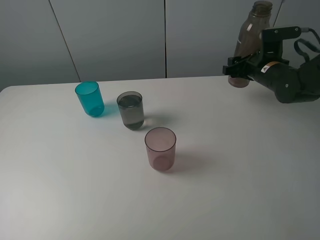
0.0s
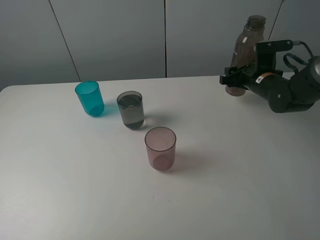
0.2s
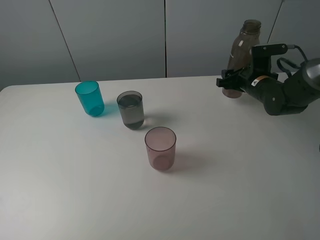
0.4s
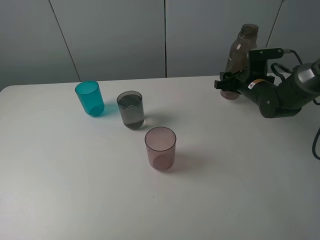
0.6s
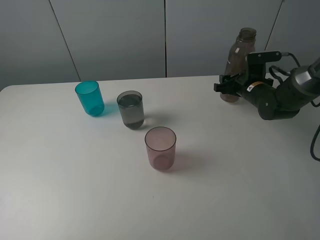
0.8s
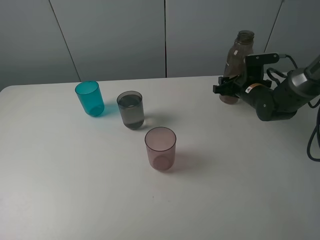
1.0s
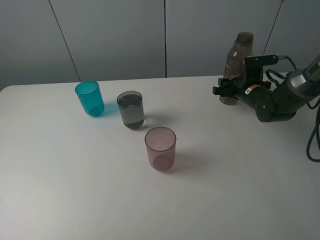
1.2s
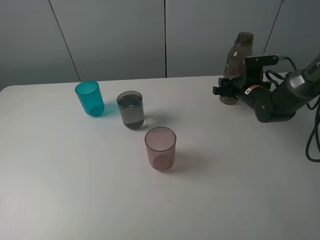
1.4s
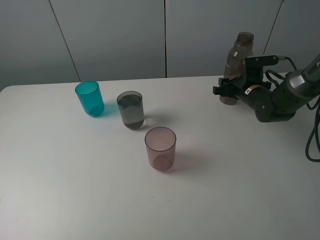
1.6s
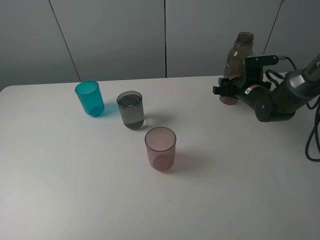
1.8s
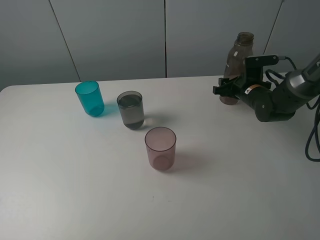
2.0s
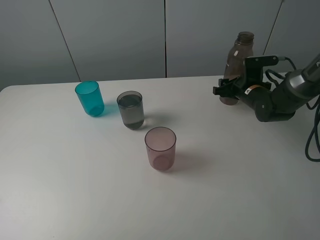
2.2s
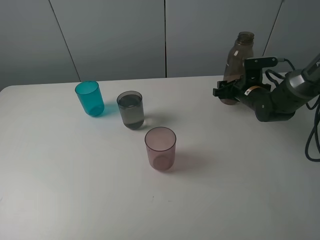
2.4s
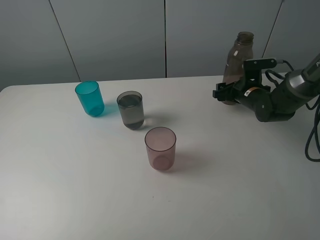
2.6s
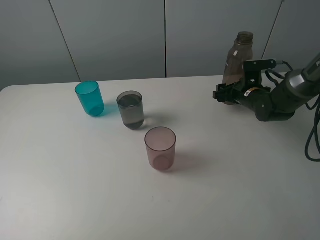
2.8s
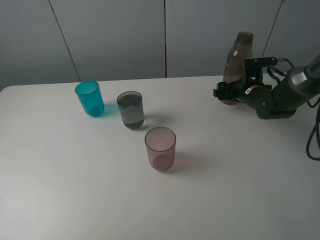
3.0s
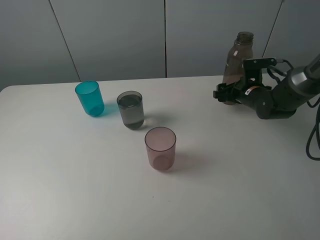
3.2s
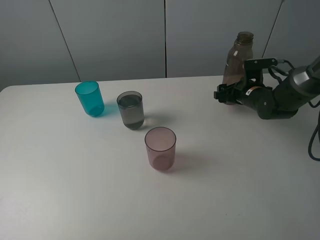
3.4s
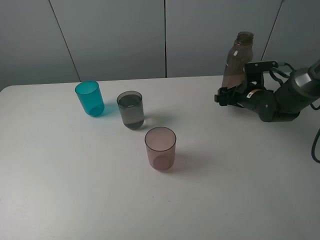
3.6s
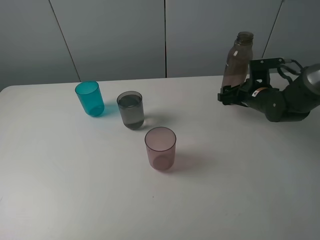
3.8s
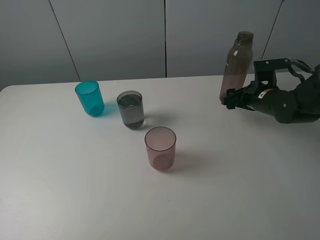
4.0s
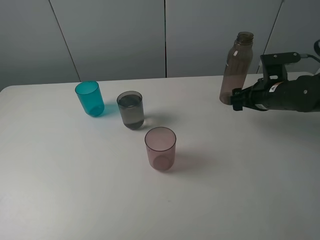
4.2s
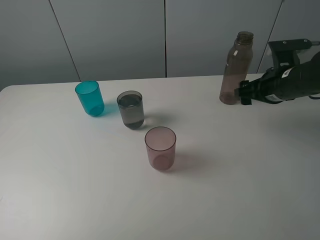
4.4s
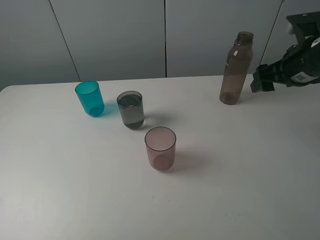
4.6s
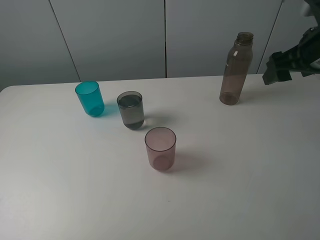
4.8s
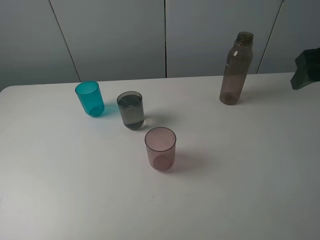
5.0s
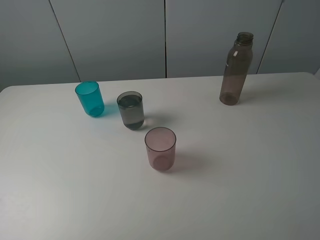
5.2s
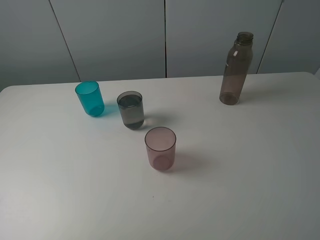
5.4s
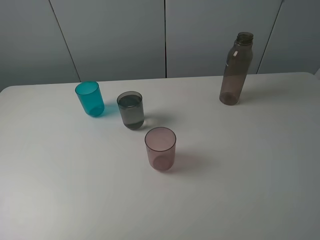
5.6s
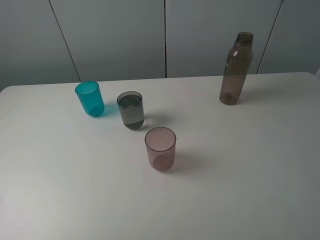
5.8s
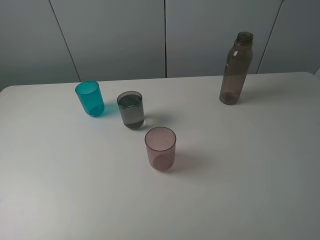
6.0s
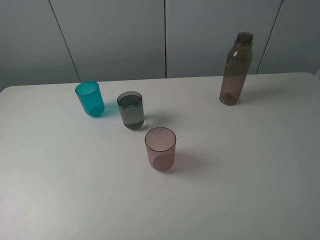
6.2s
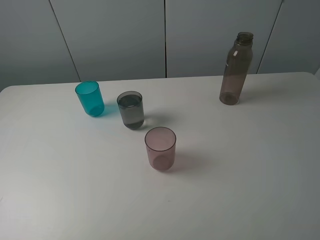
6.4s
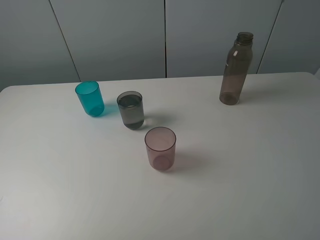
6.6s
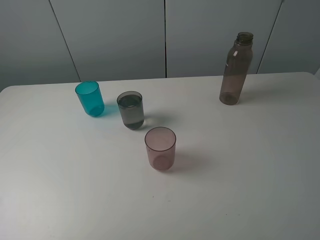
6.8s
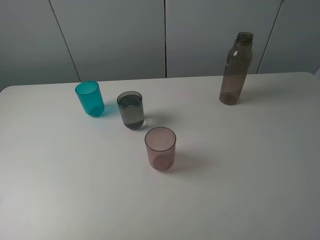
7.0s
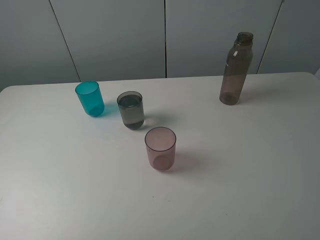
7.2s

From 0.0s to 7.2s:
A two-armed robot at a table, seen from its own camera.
Task of the whole recording: pick up the bottle filled with water and pour water into the middle cup of the three cups.
Step, from 0.0s to 4.4s: Place the brown bottle with the right gripper.
From 0.0s to 1.4s: The right gripper moves downward, some 5 cm.
From 1.4s to 2.8s: The right gripper opens.
From 2.8s to 4.4s: The right gripper travels upward and backward by roughly 15 cm.
From 4.4s to 5.8s: The right gripper heads backward and upward, covering roughly 30 cm.

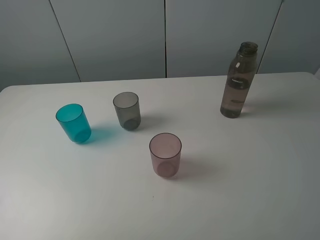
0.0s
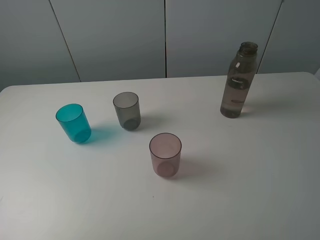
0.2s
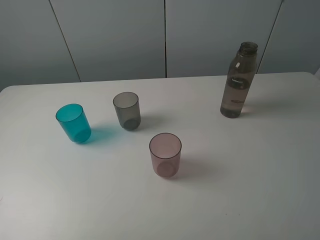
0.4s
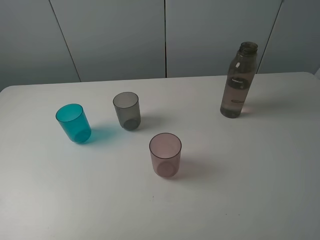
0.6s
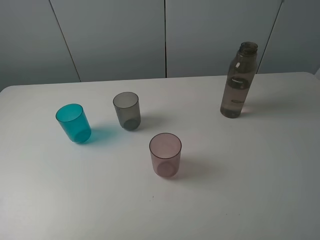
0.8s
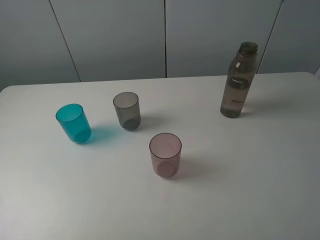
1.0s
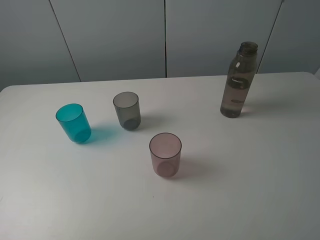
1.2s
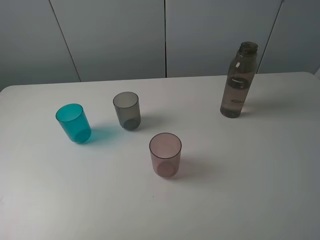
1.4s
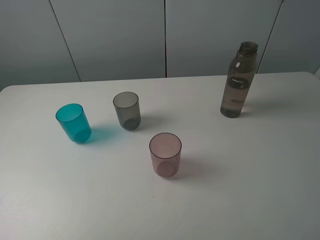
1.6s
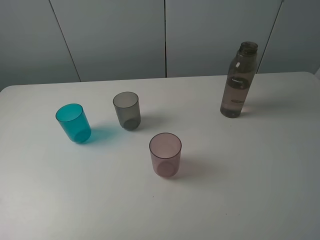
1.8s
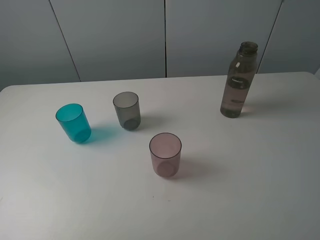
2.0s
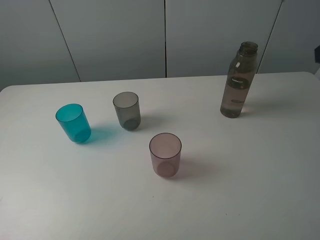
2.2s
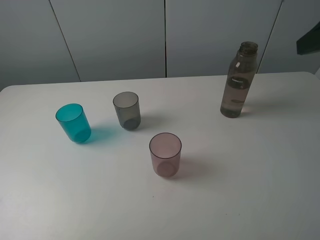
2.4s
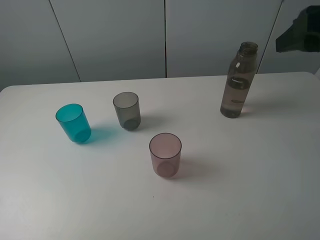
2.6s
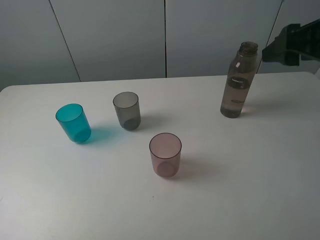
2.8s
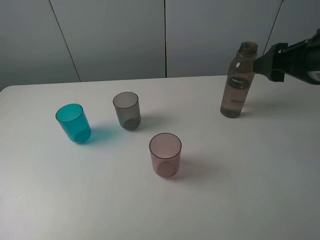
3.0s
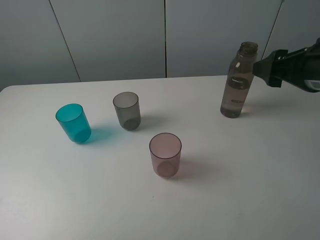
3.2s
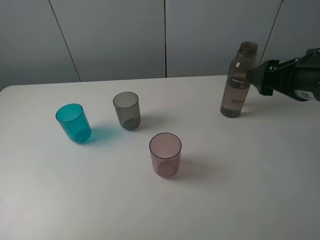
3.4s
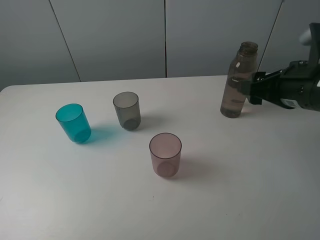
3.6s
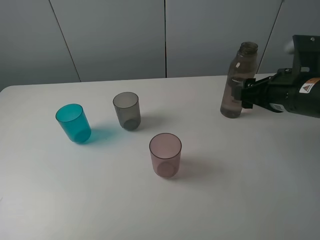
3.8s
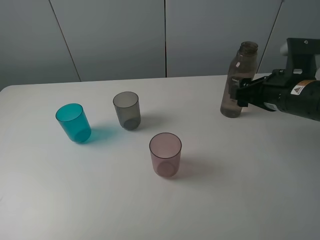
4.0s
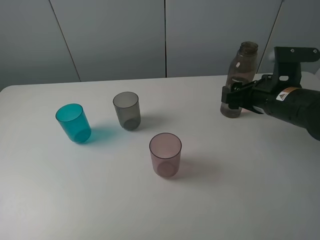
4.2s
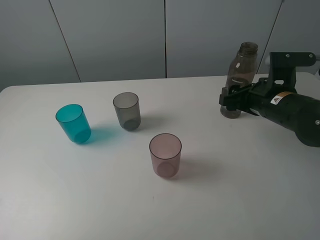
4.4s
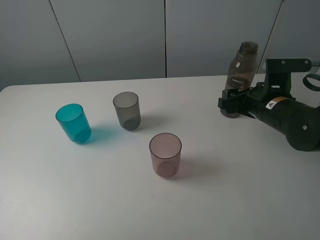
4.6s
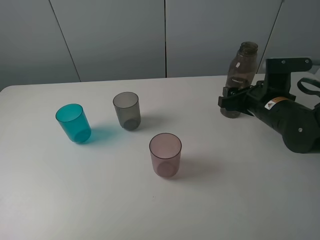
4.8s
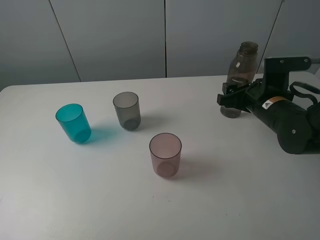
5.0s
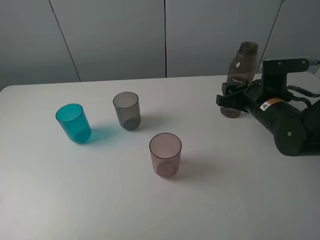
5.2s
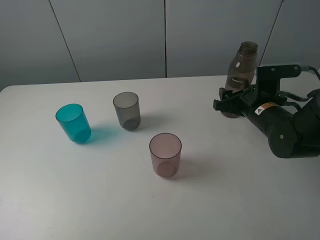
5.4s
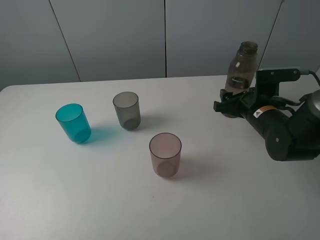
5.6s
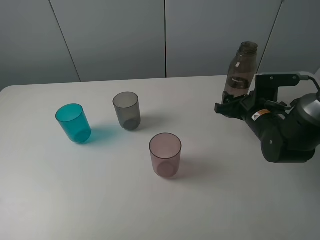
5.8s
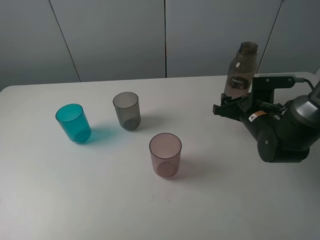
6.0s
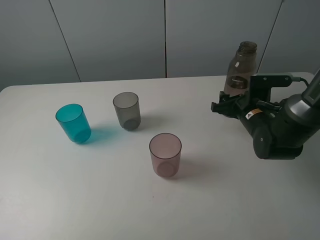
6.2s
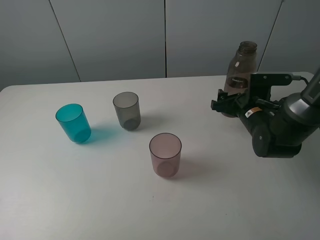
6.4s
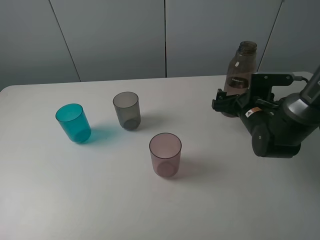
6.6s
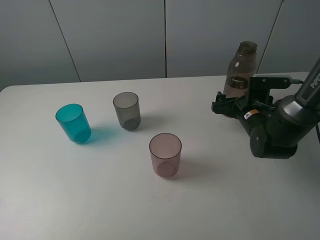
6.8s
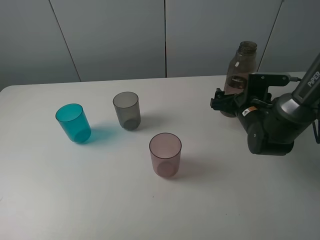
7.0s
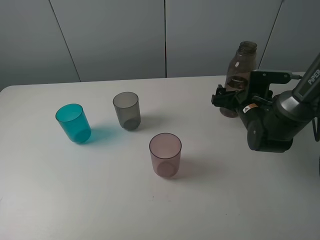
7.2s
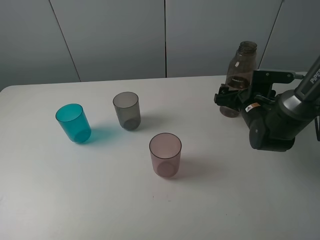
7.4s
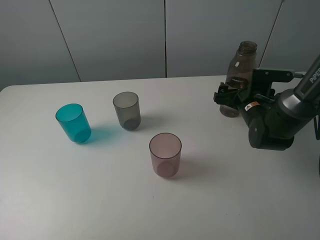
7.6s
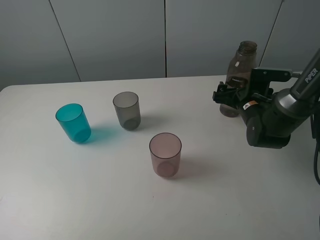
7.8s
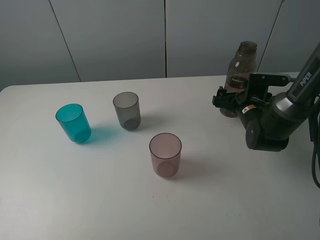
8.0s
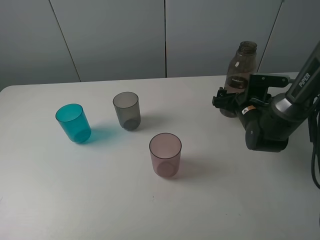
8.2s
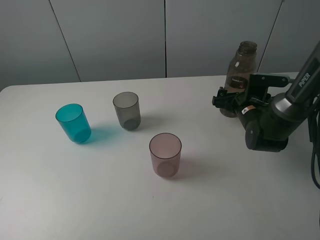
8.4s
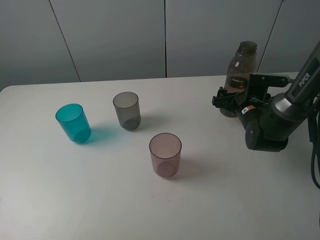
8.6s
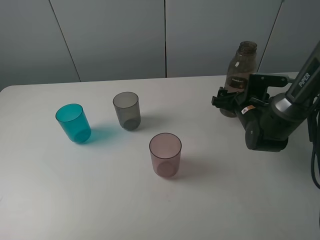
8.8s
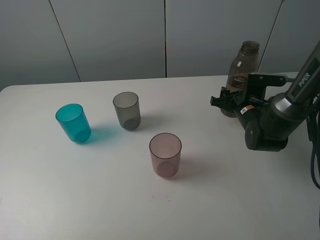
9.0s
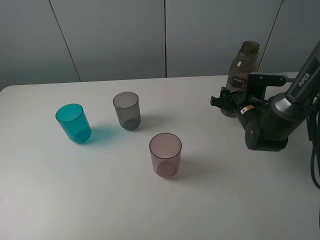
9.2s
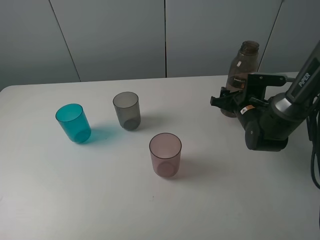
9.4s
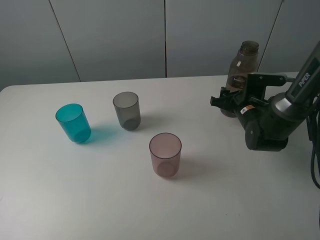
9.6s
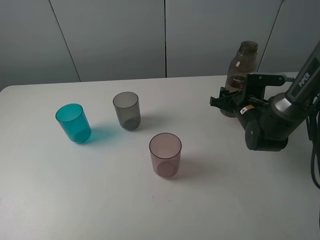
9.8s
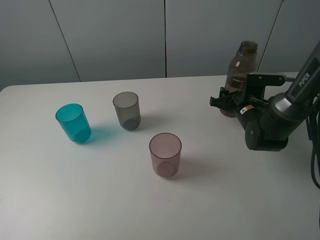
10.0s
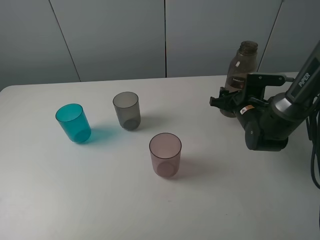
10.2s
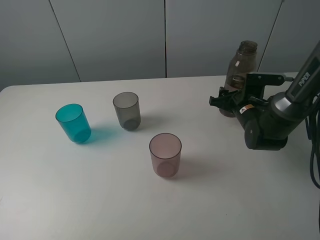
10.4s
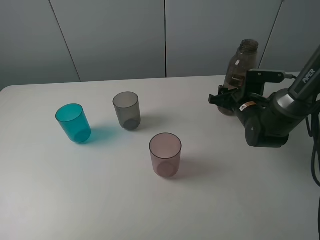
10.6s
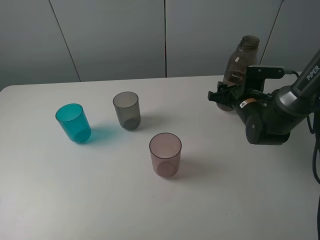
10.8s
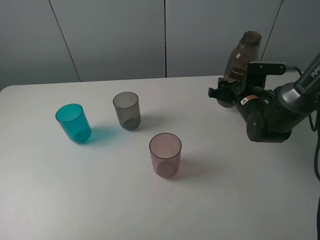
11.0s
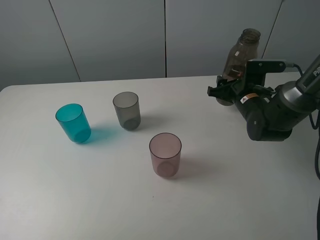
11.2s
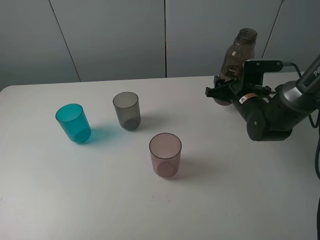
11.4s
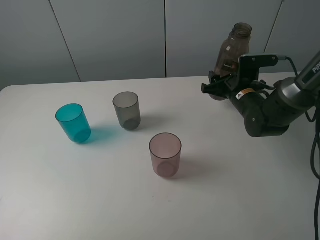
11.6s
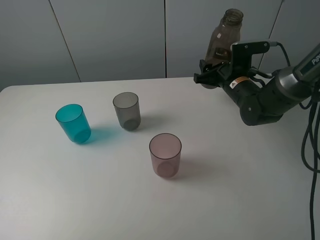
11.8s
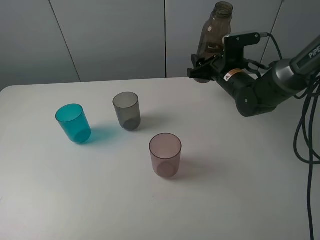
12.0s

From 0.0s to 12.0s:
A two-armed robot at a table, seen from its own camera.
Task of the whole recording: pick up the bottle filled with water and pour water into the middle cup of the three cups.
Step, from 0.0s to 8.8s: Grasp the transparent bottle with the right gripper.
From 1.6s to 3.0s: The right gripper heads forward and downward, covering some 20 cm.
From 3.0s to 4.4s: The right gripper goes approximately 10 cm downward.
From 4.4s to 6.0s: The right gripper travels downward by approximately 5 cm.
From 6.0s to 7.6s: The right gripper opens.
From 7.6s to 9.0s: The right gripper closes up.
From 9.0s to 10.4s: The two grippers keep their place.
From 10.4s to 12.0s: The right gripper is displaced upward and forward by approximately 10 cm.

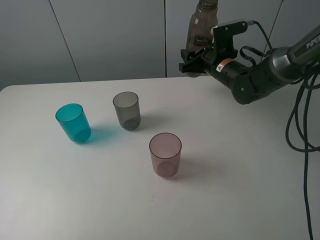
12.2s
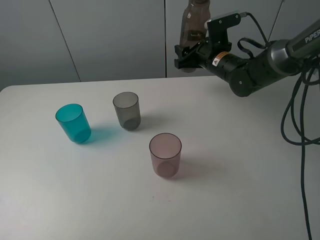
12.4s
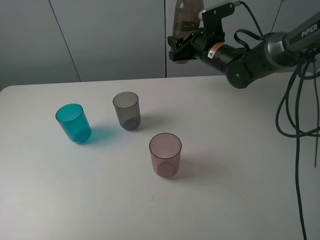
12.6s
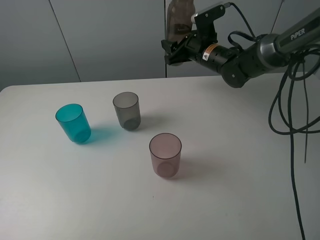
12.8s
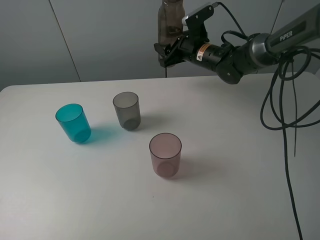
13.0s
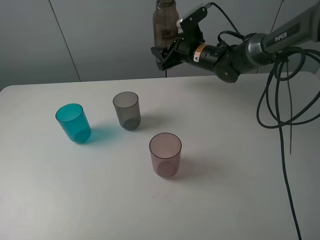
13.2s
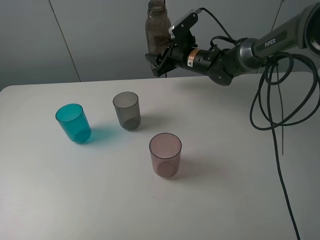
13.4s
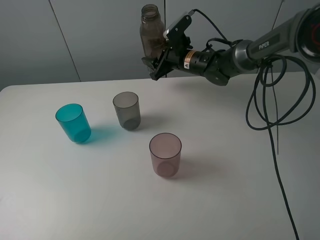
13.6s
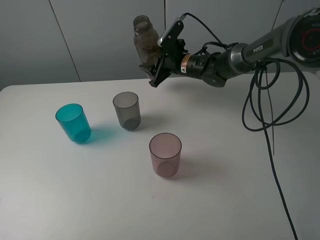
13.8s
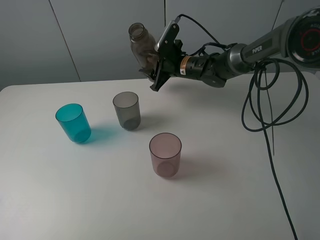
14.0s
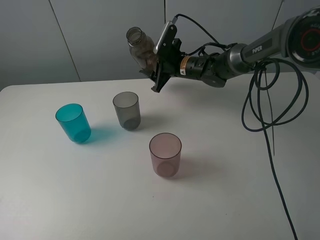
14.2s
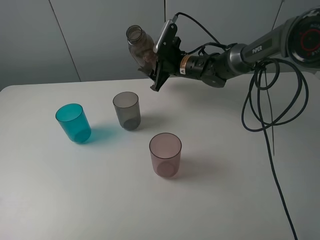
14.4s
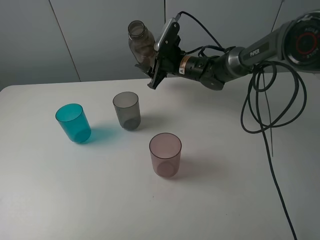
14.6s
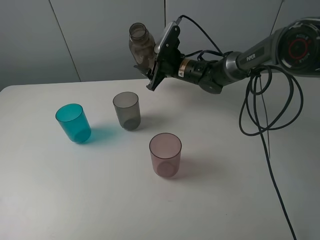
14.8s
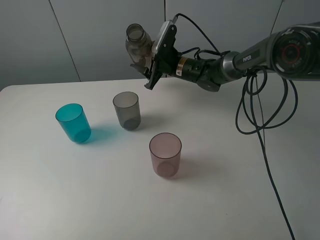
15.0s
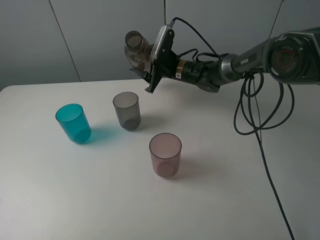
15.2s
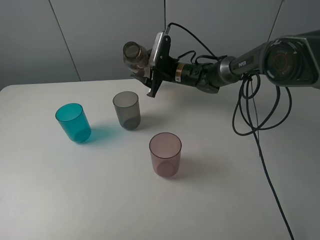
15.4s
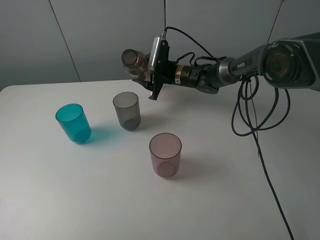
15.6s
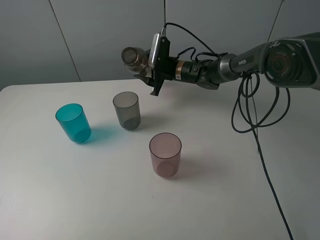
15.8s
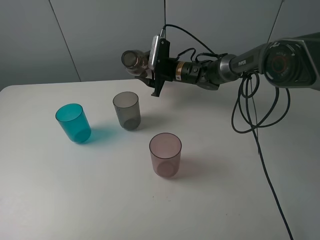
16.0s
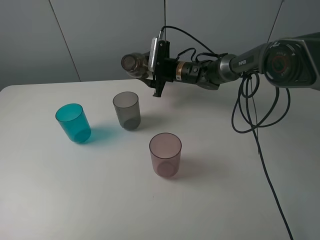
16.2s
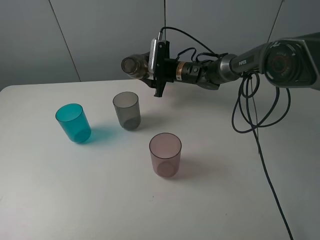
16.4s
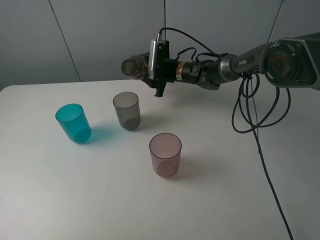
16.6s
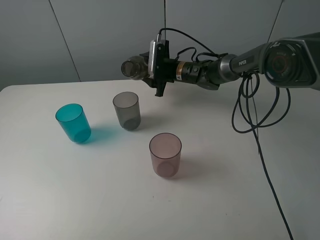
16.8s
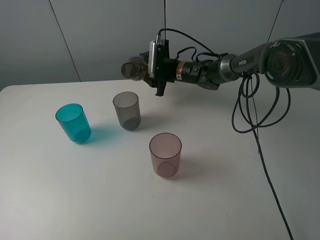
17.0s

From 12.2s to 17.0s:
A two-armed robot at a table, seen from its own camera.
Task of the whole recording: pick up the bottle filled with water and pour water into the middle cup of the three cups.
From 12.2s to 13.8s: The right gripper travels to the left and forward by approximately 10 cm.
